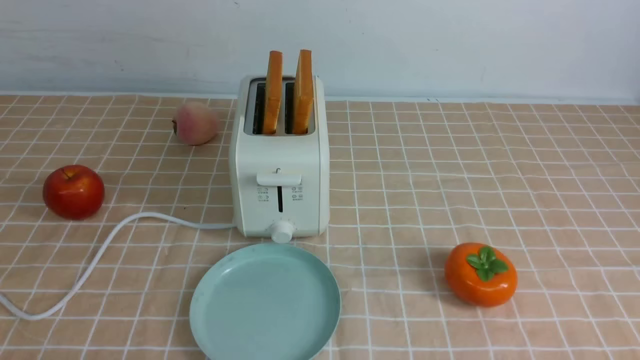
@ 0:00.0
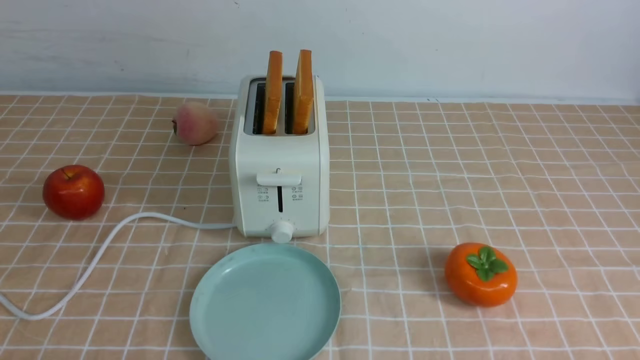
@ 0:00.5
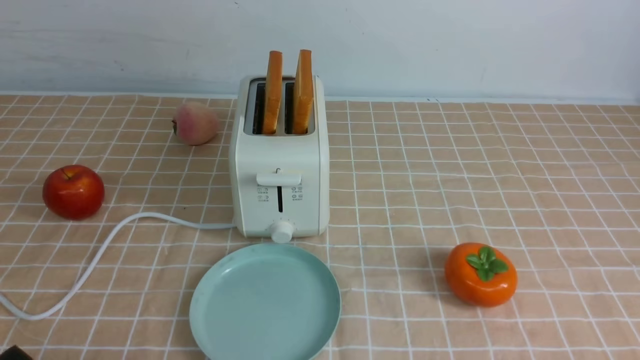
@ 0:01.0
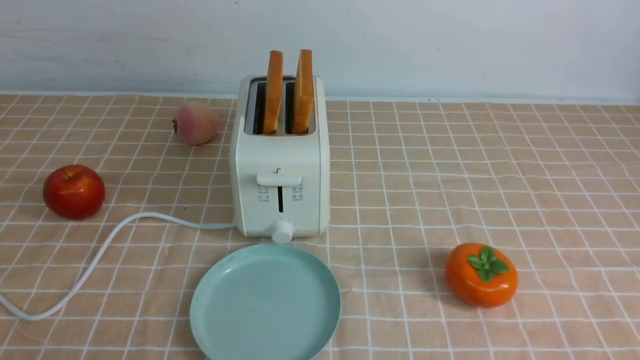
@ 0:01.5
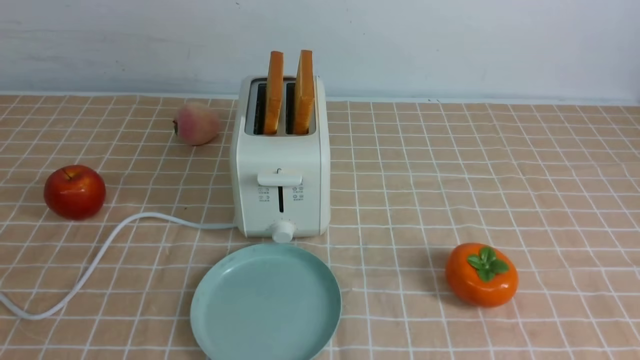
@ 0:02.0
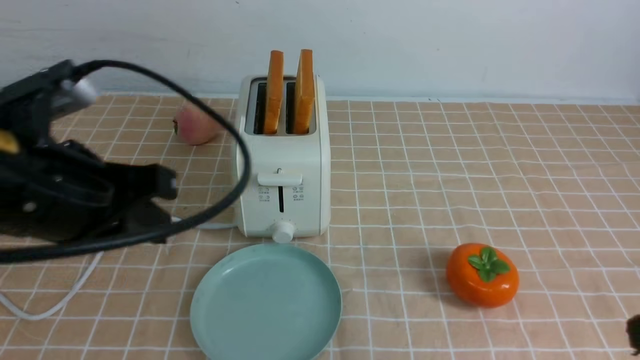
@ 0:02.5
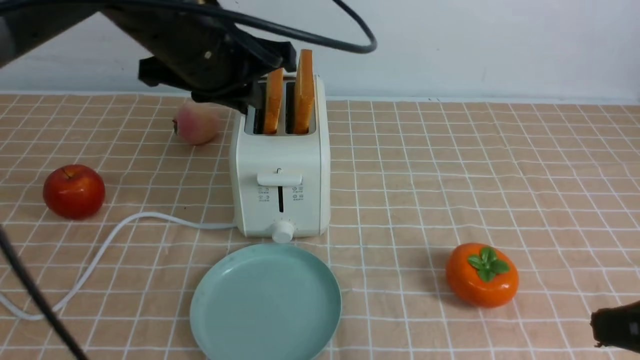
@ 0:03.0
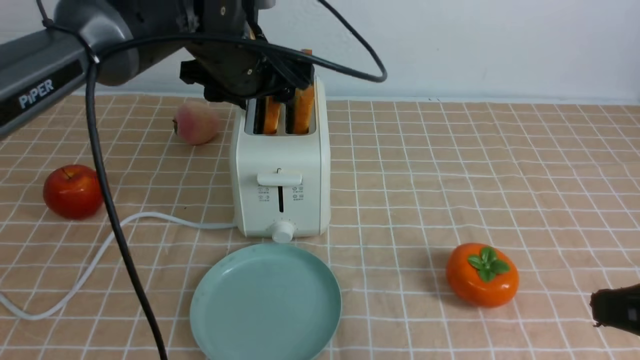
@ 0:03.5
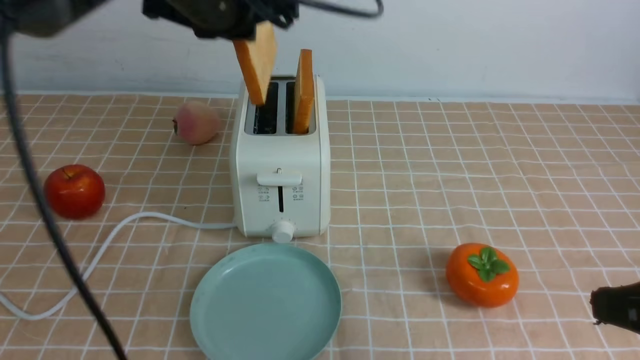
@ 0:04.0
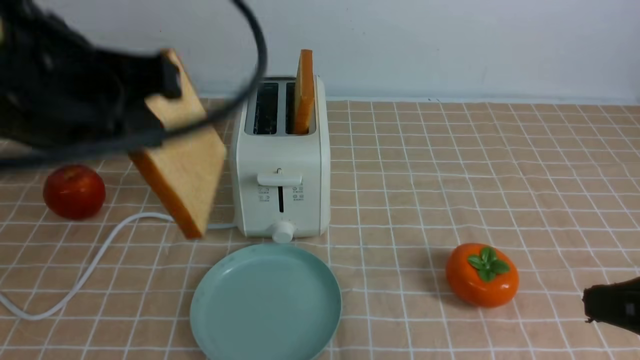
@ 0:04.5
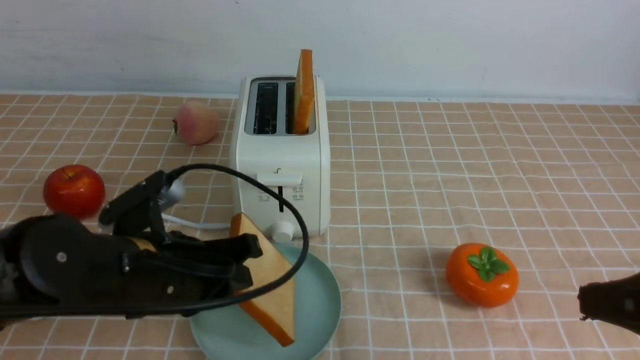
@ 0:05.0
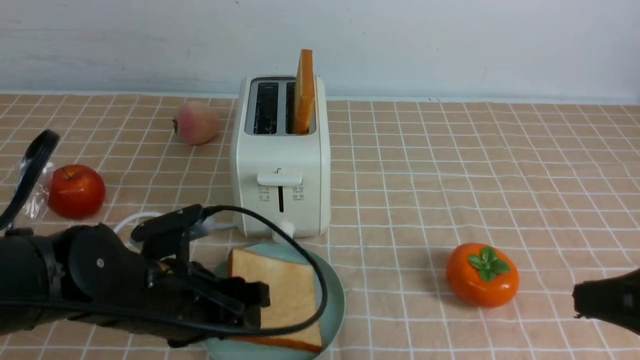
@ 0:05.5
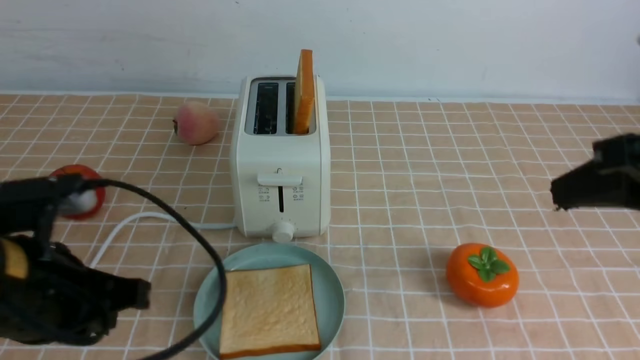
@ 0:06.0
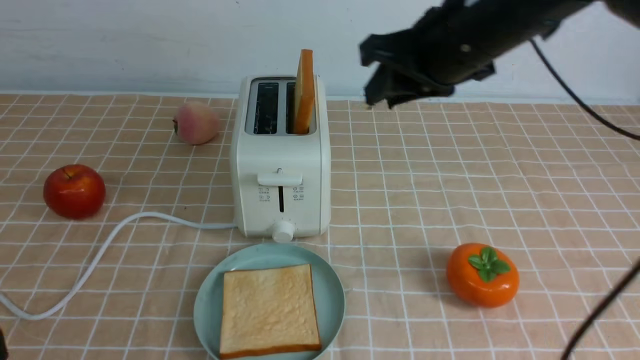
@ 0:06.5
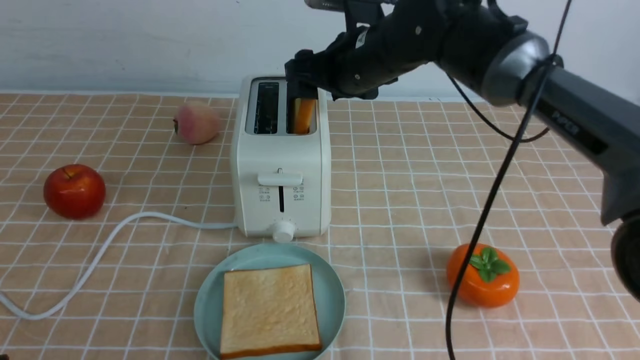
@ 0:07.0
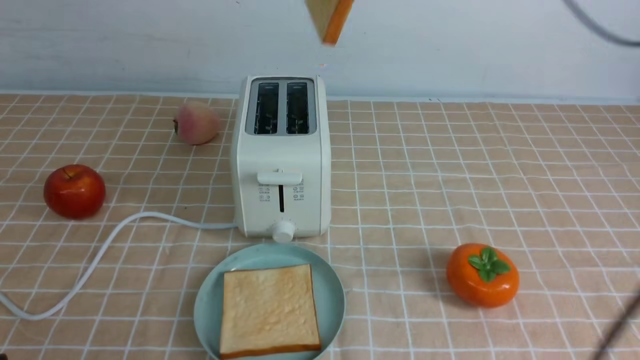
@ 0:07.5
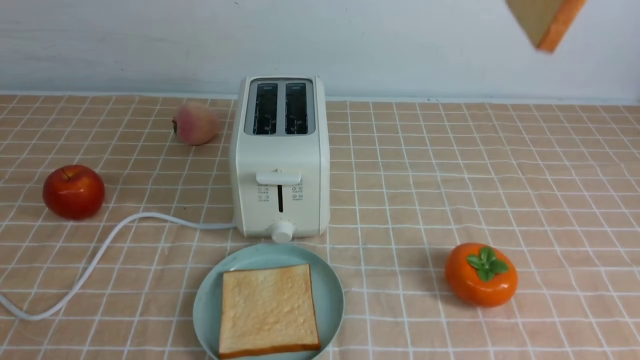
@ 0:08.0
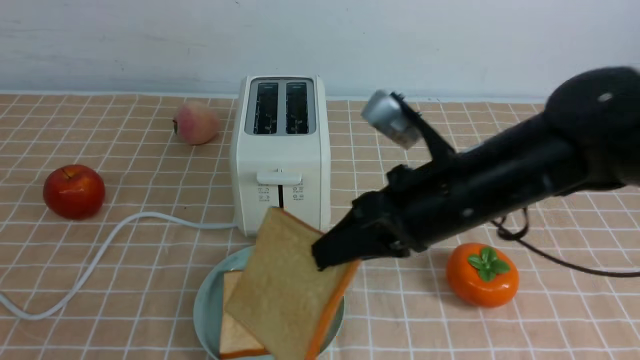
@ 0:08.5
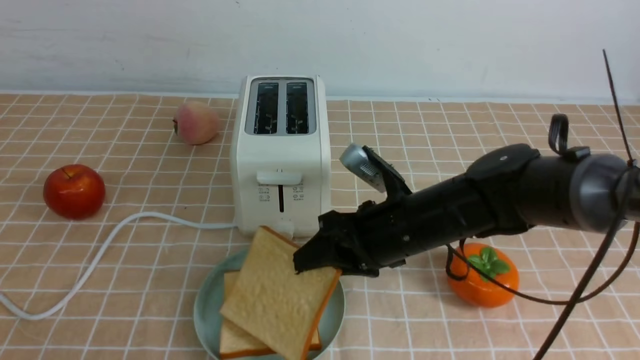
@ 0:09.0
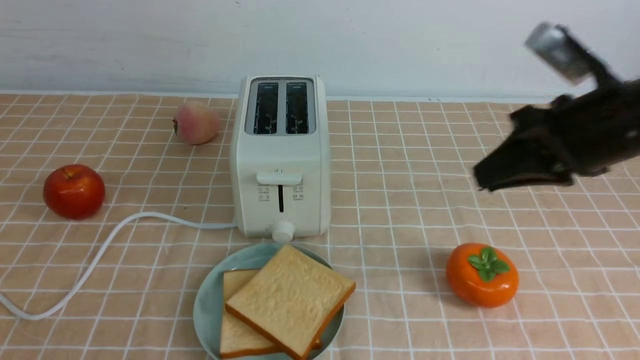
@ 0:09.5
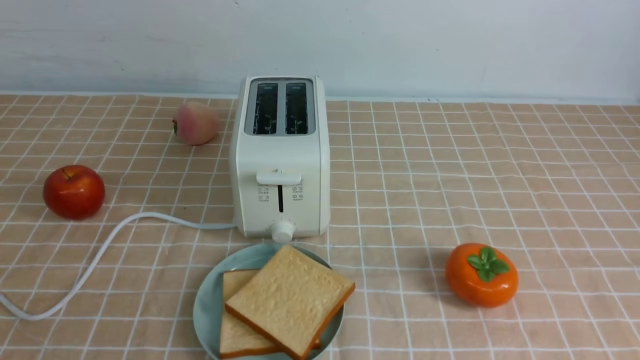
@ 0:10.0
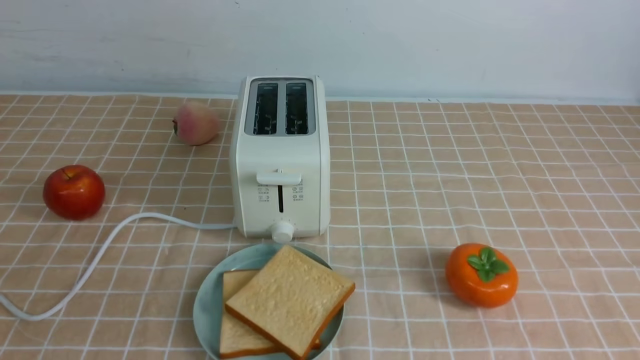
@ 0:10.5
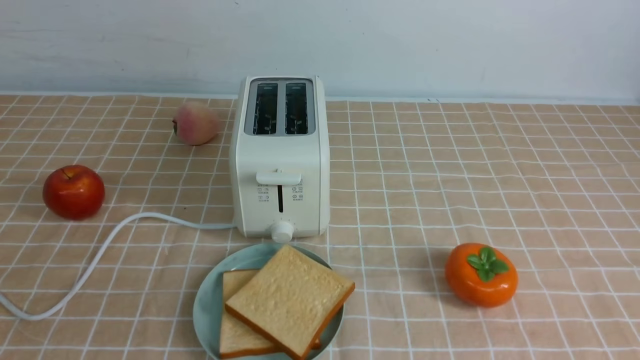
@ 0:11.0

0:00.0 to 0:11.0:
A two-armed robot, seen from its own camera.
Task of the whole recording: take toasted bread from bread machine on light coffee tablecloth place on plate.
Step, 0:00.0 to 0:03.5: use the left arm to take out a slice of bread.
Step, 0:04.5 to 0:05.5: use the left arm to put a slice of bread into the empty plate.
Step, 0:06.0 to 0:07.0: use the right arm to take out a slice of bread.
Step, 0:07.5 to 0:09.0: use the right arm to put a slice of bread into the plate.
0:02.0 to 0:03.5: The right gripper shifts some 10 cm forward, while the left gripper travels forward and to the right by approximately 40 cm, and opens its fingers.
0:03.5 to 0:05.5: The left gripper shifts some 25 cm backward and downward, and closes, then reopens.
0:05.5 to 0:07.5: The right gripper is displaced forward, to the left and upward by some 35 cm, and opens and closes again. Meanwhile the left gripper moves backward, to the left and upward, about 25 cm, and closes up.
0:07.5 to 0:09.0: The right gripper is displaced downward by some 25 cm.
0:09.0 to 0:11.0: The right gripper heads backward and to the right, covering some 35 cm, and closes its fingers.

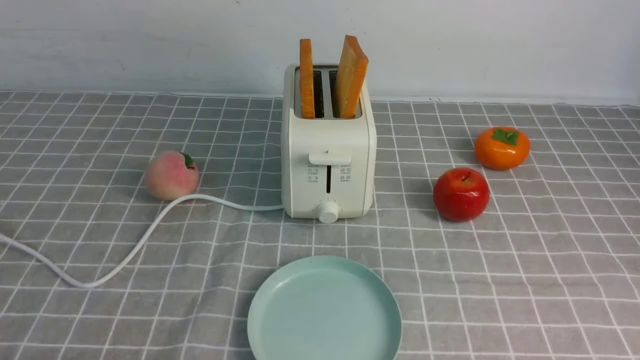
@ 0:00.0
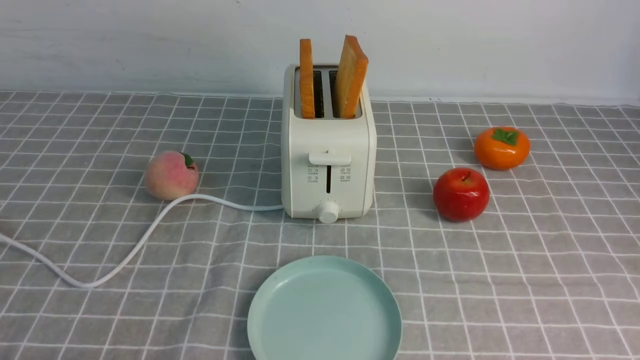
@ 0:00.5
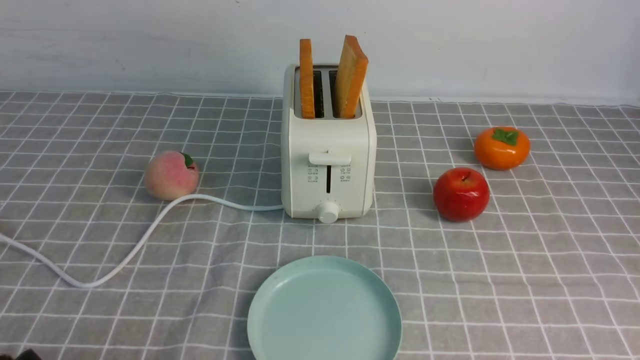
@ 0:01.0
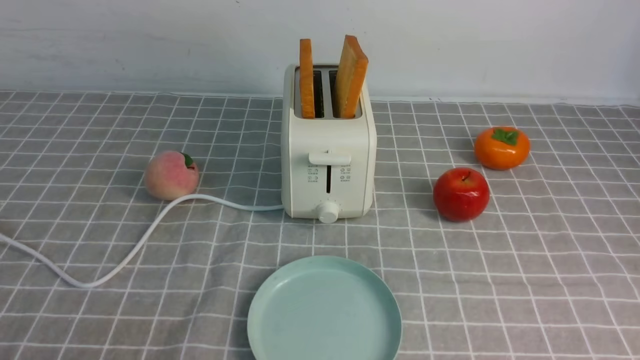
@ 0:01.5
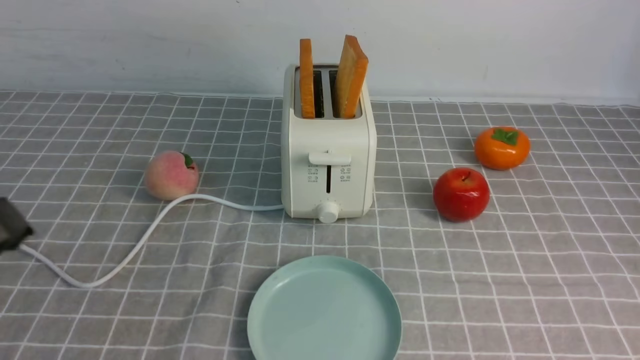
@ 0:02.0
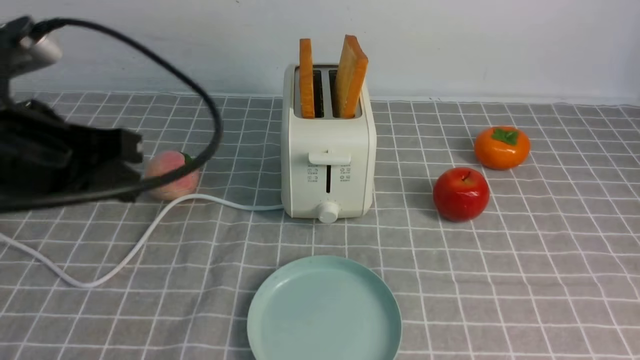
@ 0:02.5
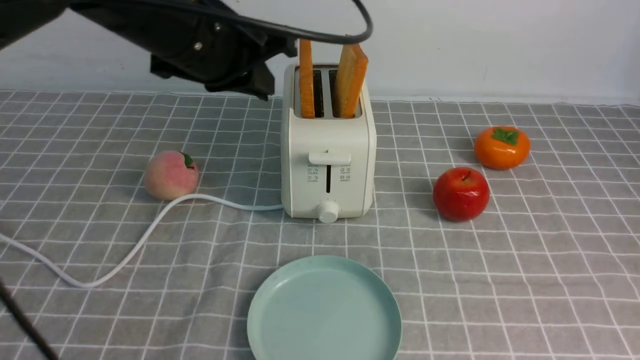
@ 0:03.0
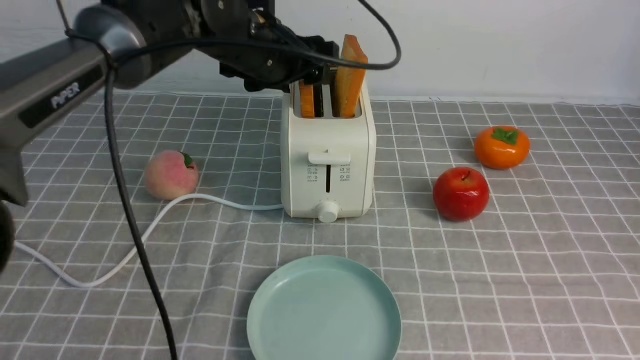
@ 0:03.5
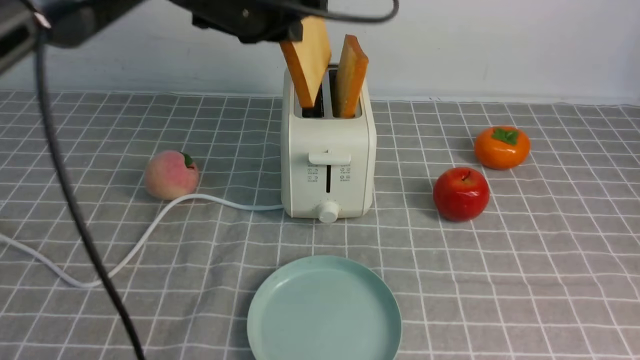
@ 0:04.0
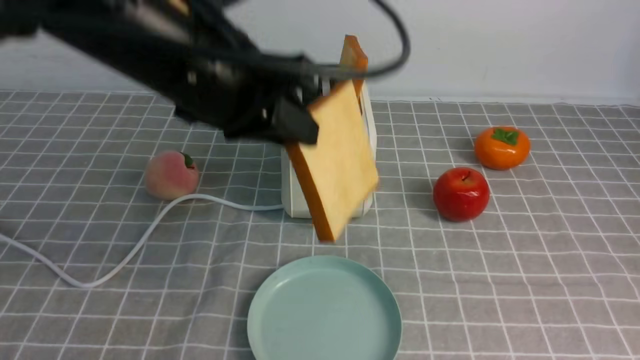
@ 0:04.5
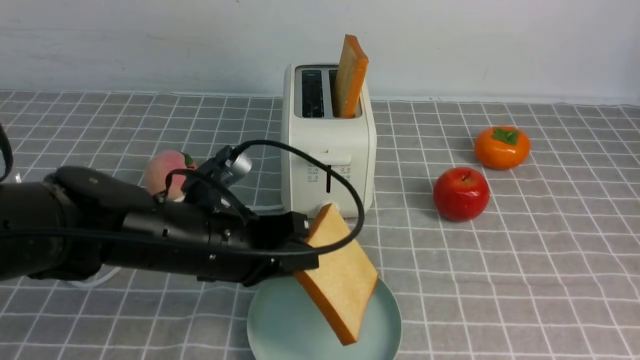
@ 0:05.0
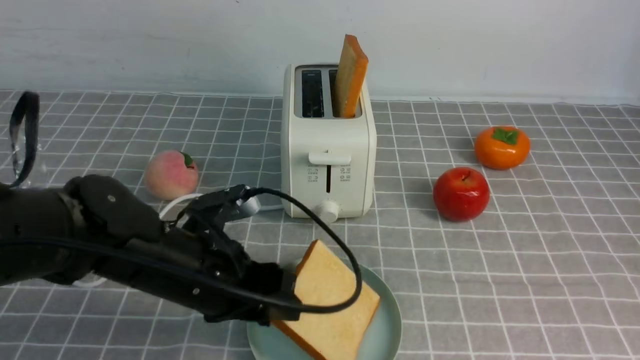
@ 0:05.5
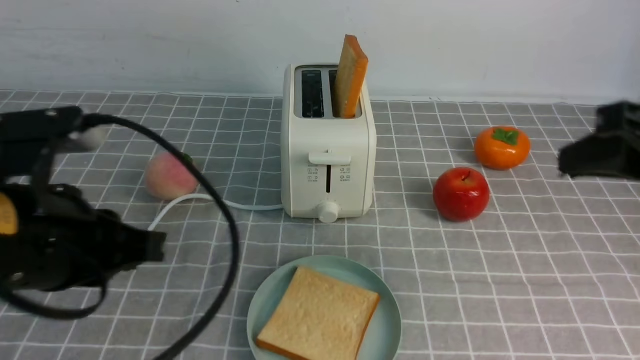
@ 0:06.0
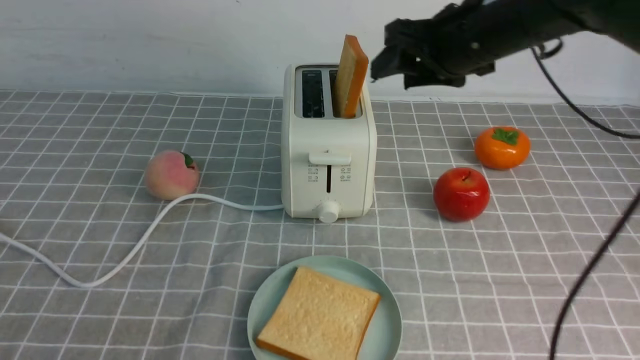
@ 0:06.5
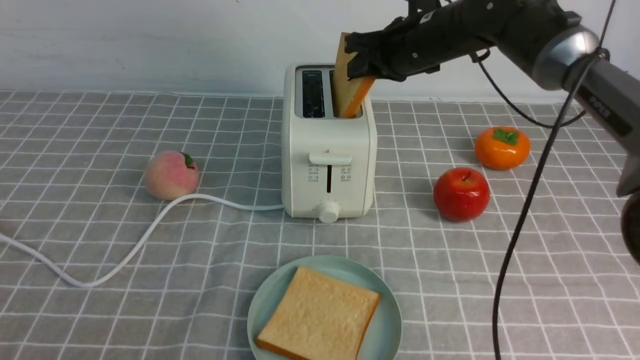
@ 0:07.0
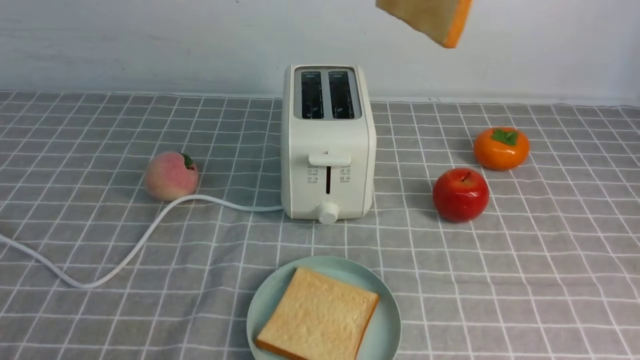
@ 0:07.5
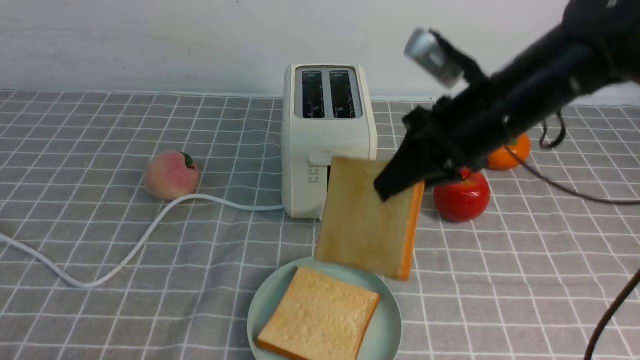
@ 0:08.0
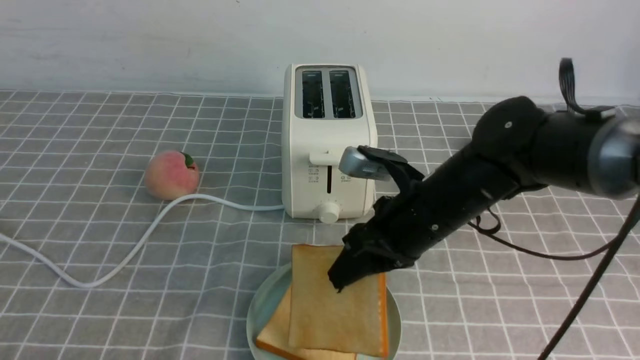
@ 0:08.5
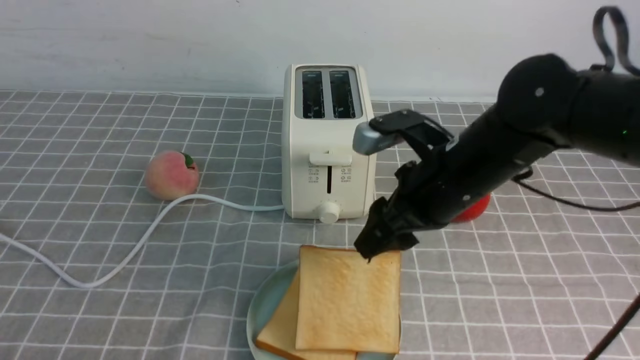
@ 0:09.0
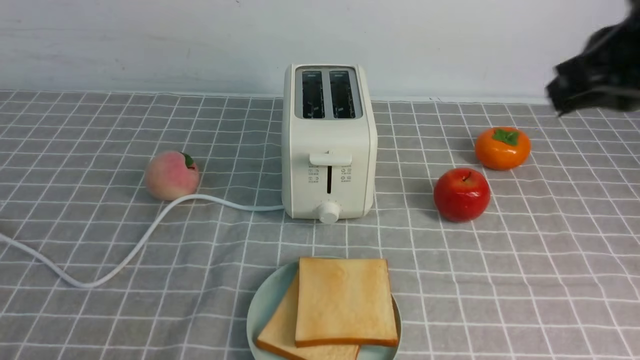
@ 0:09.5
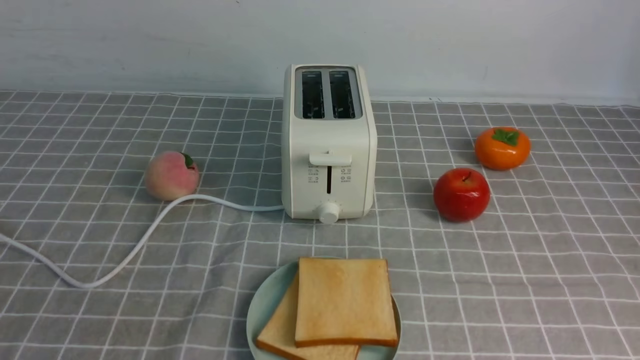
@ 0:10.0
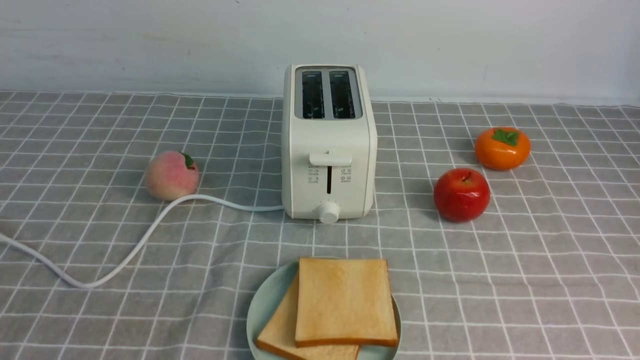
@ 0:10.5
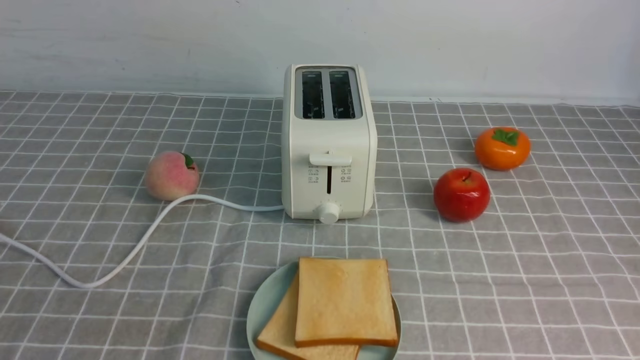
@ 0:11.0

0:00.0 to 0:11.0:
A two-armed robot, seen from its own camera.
Task of the whole recording: take toasted bread from bread machine on grey coffee table place on plate.
Step, 0:00.0 to 0:04.0: use the left arm to take out a slice of bread.
Step, 0:04.5 to 0:05.5: use the left arm to put a slice of bread into the empty plate.
Step, 0:06.0 to 0:07.0: use the right arm to take out a slice of bread.
Step, 0:07.5 to 0:09.0: use the right arm to put a slice of bread into the plate.
0:02.0 to 0:03.5: The left gripper travels forward and to the right by about 40 cm, and opens its fingers; the right gripper is displaced upward by about 10 cm, and closes up.
0:03.5 to 0:05.5: The left gripper travels backward and downward by approximately 20 cm, and closes and opens again.
0:05.5 to 0:07.5: The right gripper travels forward, upward and to the left by approximately 35 cm, and opens, then closes once more. The left gripper is displaced backward, to the left and upward by some 30 cm, and closes.
0:07.5 to 0:09.0: The right gripper travels downward by some 20 cm, and opens its fingers.
0:09.0 to 0:11.0: The right gripper shifts approximately 35 cm backward and to the right, and closes its fingers.
